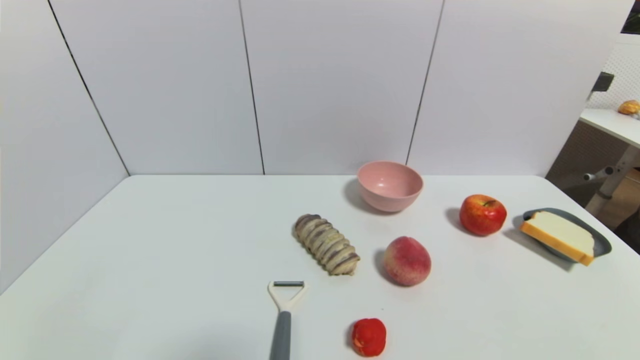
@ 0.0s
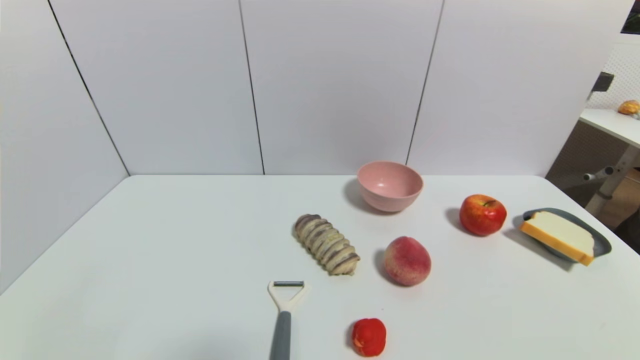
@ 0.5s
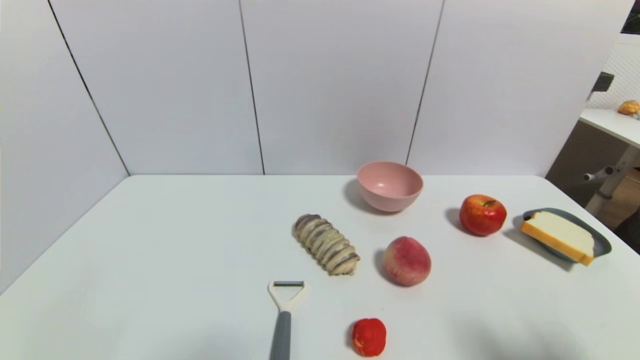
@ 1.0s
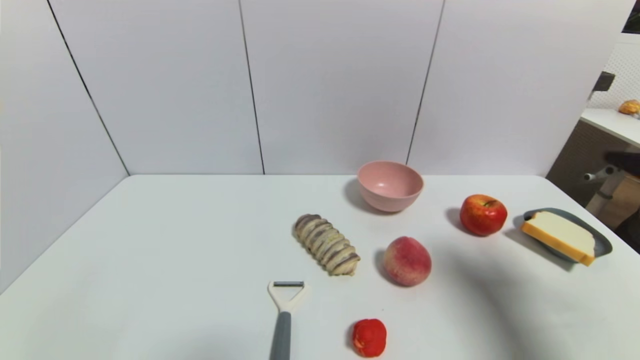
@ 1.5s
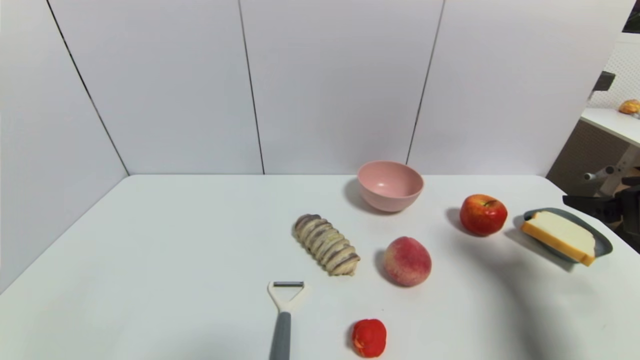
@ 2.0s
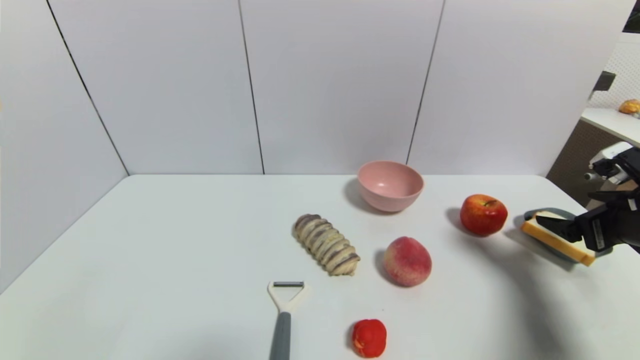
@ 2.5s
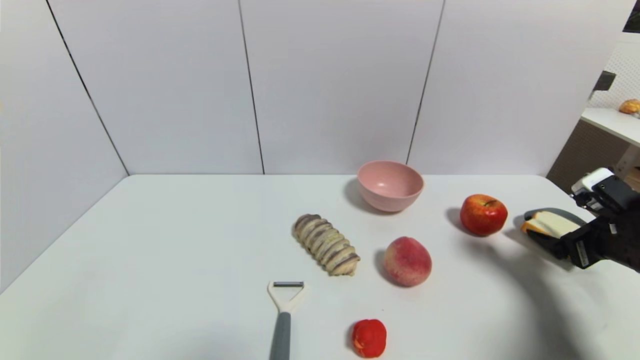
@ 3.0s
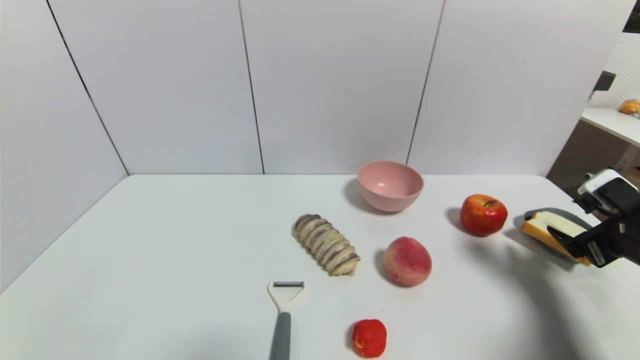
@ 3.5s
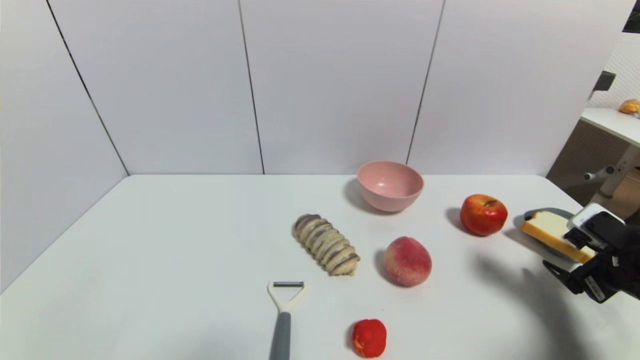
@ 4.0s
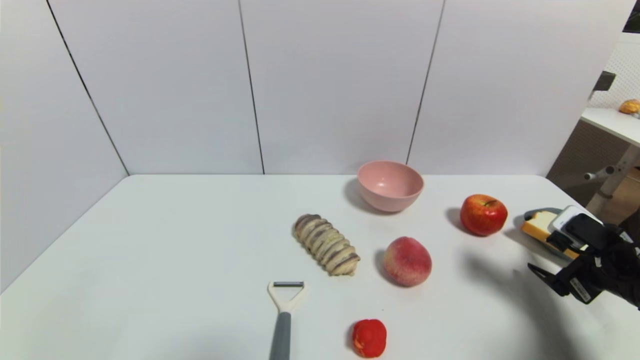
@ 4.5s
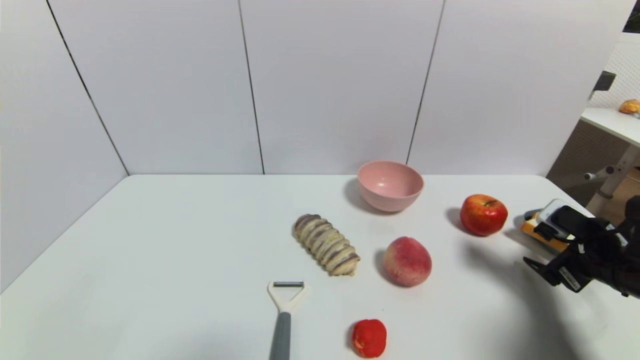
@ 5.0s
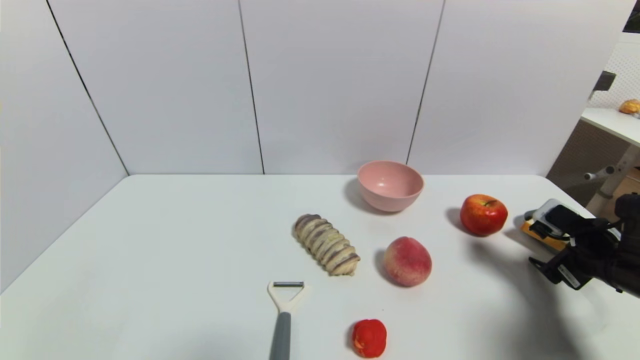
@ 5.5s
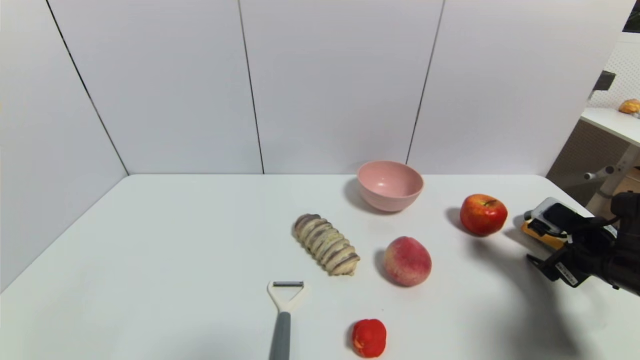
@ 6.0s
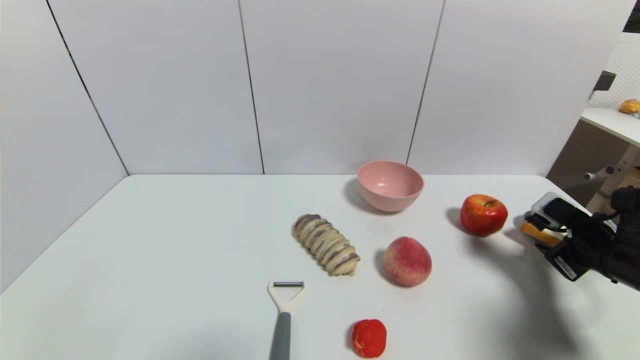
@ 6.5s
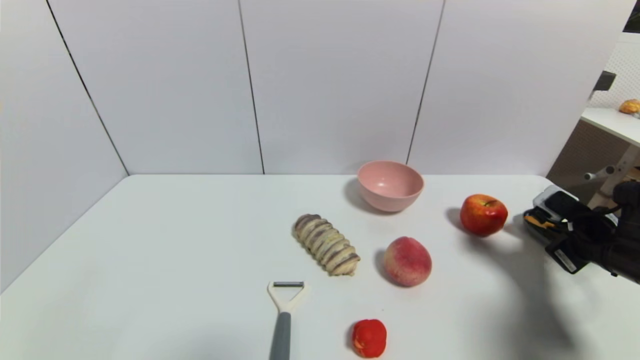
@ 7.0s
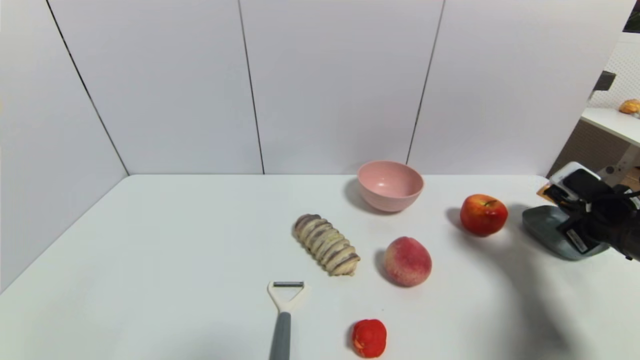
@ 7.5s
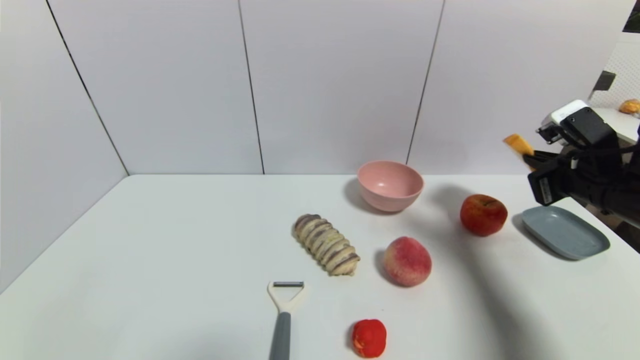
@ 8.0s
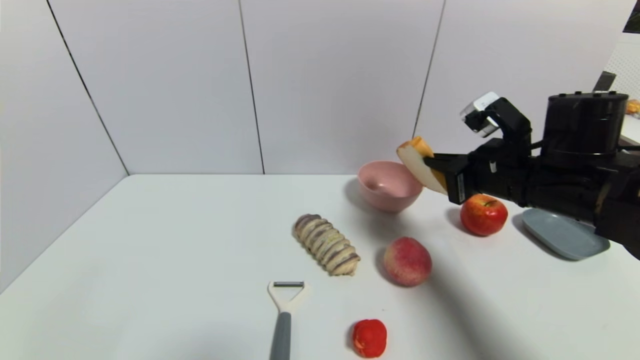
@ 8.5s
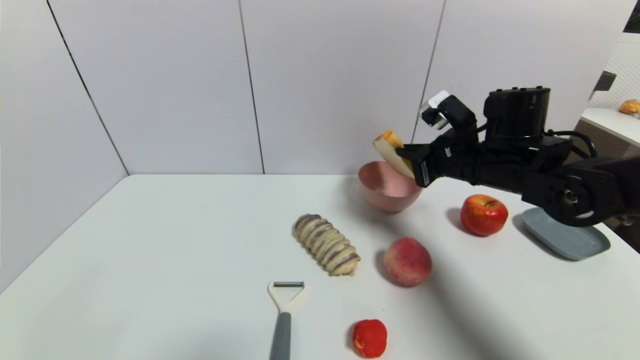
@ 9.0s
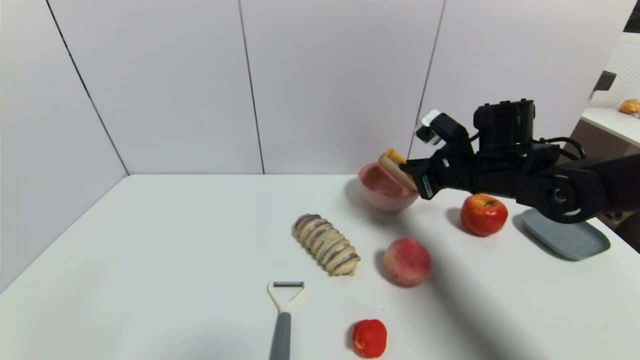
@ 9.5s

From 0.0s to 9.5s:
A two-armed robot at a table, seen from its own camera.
Task of the whole recording: use a gripper to pick the target object and place on the pink bowl.
Step, from 0.0s to 6.5s: Grasp the bread slice with the right gripper.
From 0.0s to 2.0s: The right gripper travels forward and upward by roughly 25 cm.
From 2.0s to 4.0s: The right gripper shifts approximately 10 cm downward.
From 4.0s to 5.5s: The grippers move only a little.
From 5.5s to 7.5s: The right gripper closes its fingers.
From 7.5s to 9.5s: The right gripper travels to the left and forward by about 20 cm.

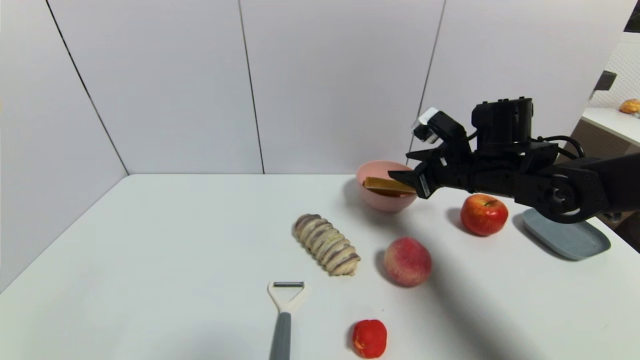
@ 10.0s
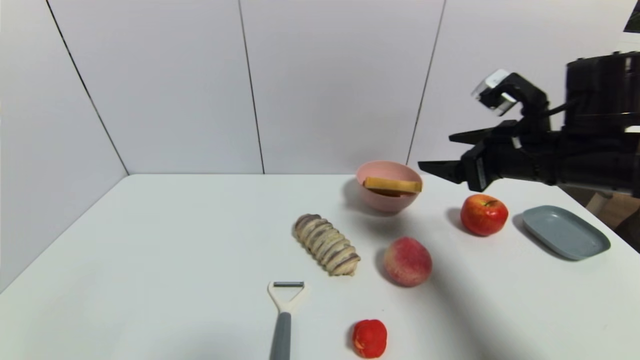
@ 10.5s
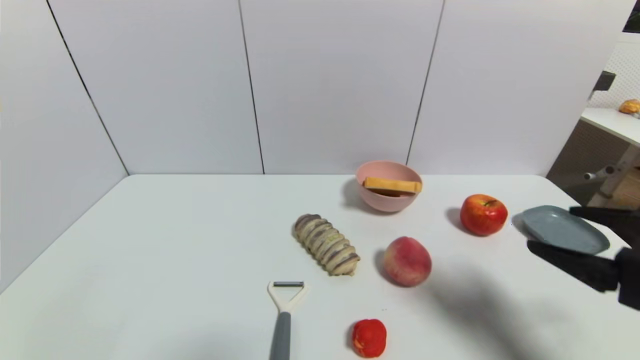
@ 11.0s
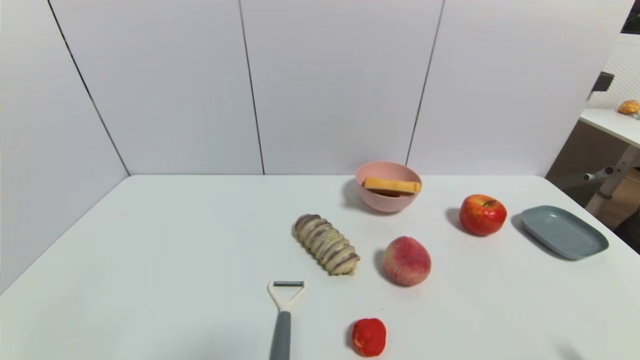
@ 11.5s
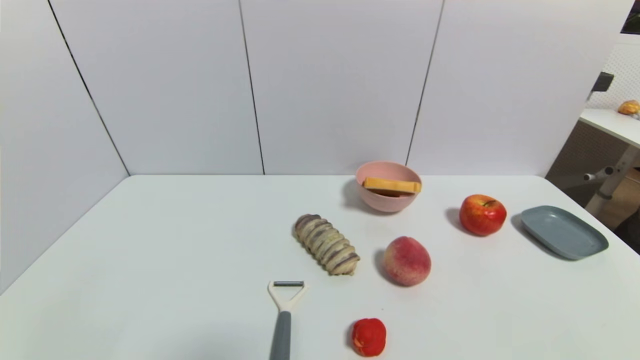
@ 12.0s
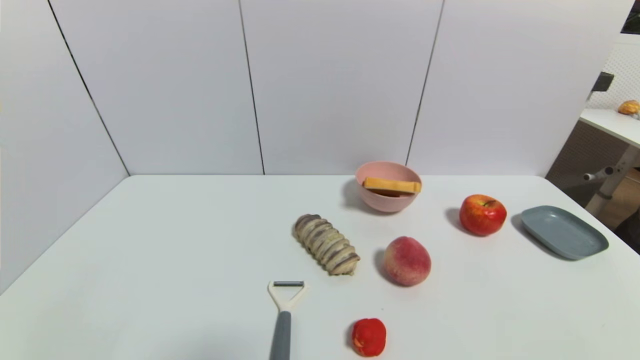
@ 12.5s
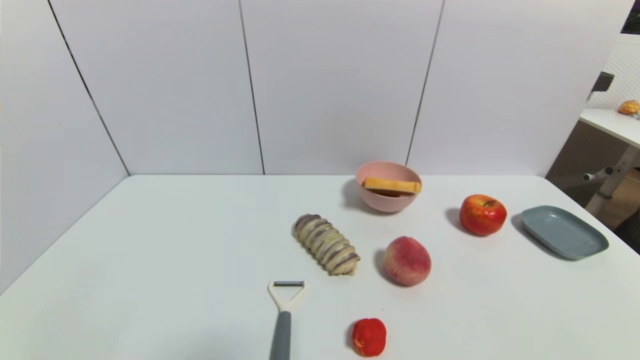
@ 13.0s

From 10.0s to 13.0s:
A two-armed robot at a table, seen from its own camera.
Task of the whole recording: use a gripper to pick the target object and place on the pink bowl.
From 10.0s to 11.5s: The right gripper is displaced backward by about 35 cm, and opens up.
